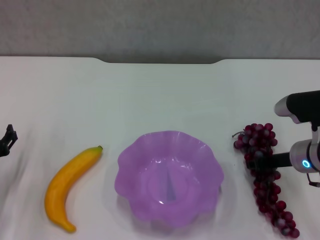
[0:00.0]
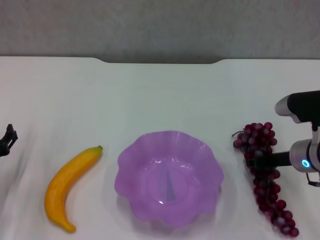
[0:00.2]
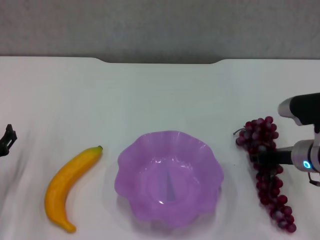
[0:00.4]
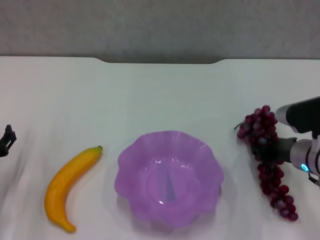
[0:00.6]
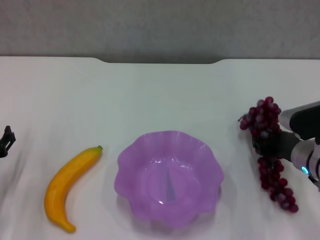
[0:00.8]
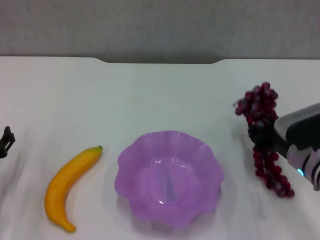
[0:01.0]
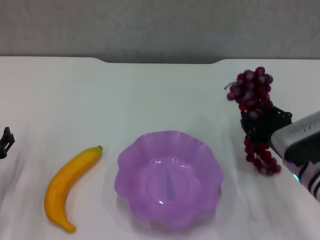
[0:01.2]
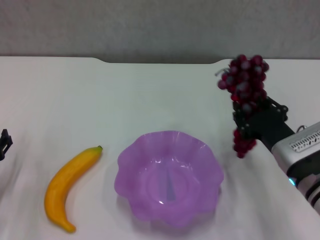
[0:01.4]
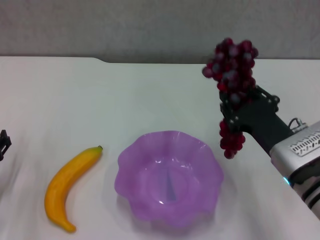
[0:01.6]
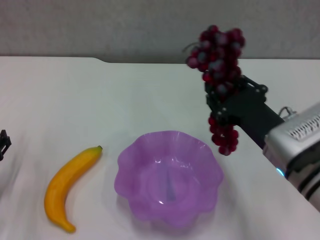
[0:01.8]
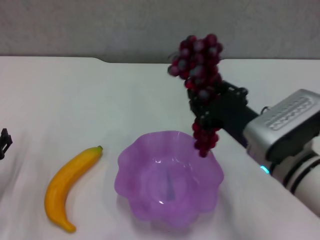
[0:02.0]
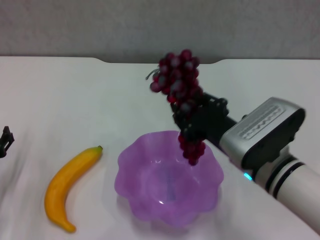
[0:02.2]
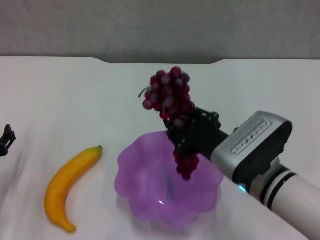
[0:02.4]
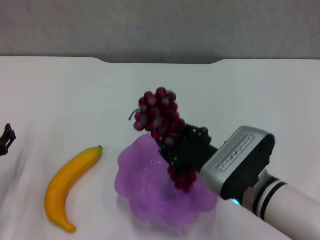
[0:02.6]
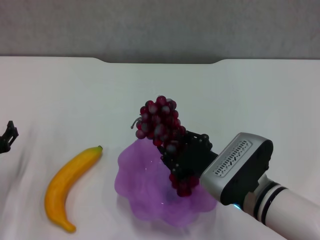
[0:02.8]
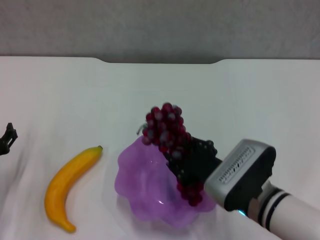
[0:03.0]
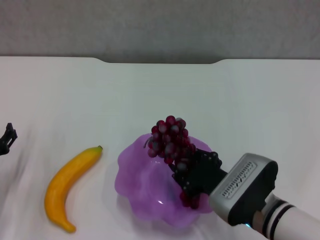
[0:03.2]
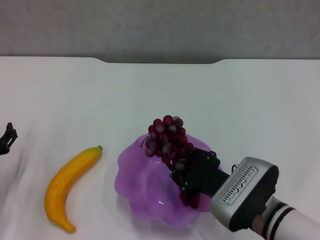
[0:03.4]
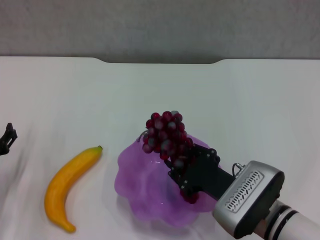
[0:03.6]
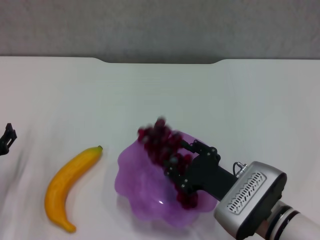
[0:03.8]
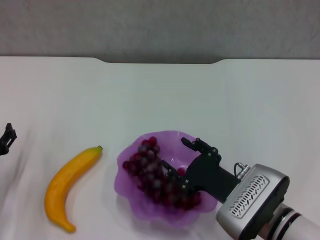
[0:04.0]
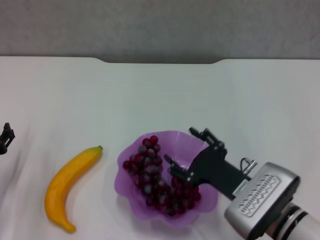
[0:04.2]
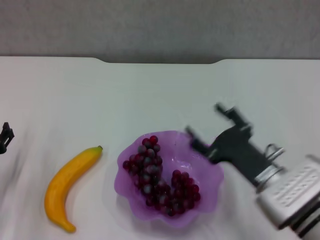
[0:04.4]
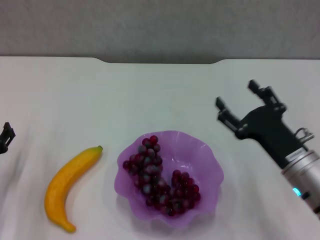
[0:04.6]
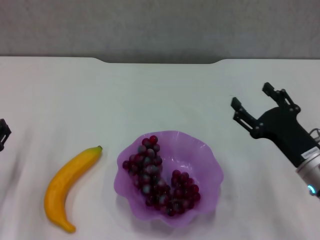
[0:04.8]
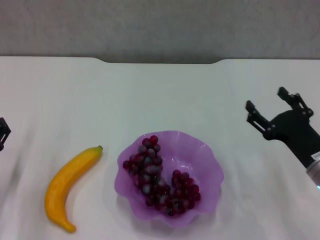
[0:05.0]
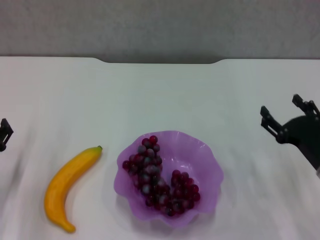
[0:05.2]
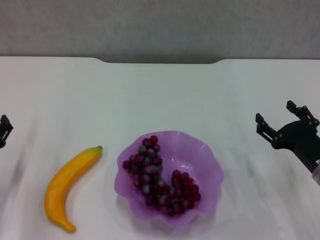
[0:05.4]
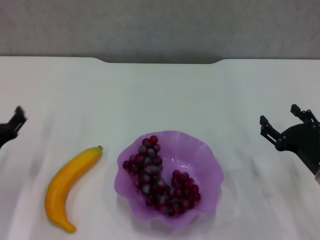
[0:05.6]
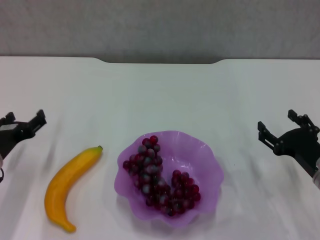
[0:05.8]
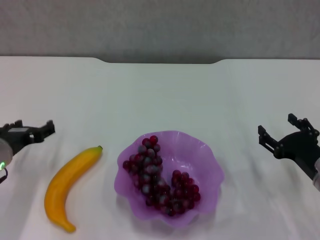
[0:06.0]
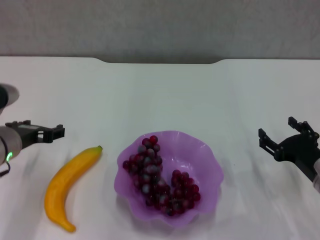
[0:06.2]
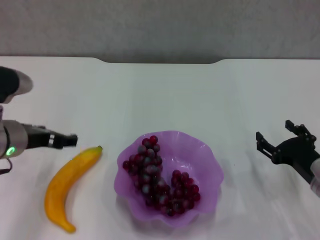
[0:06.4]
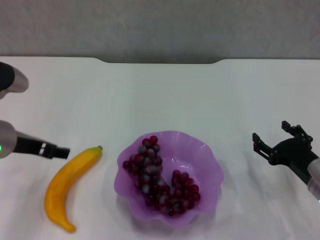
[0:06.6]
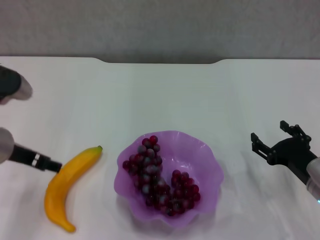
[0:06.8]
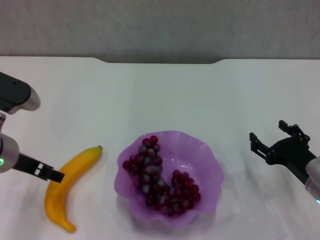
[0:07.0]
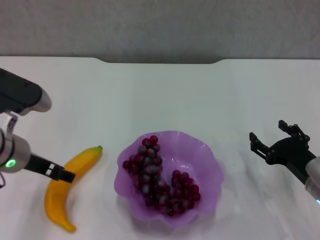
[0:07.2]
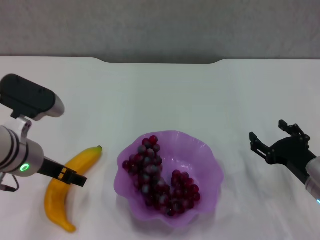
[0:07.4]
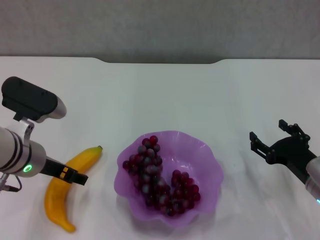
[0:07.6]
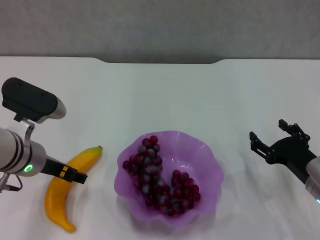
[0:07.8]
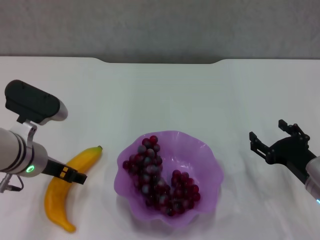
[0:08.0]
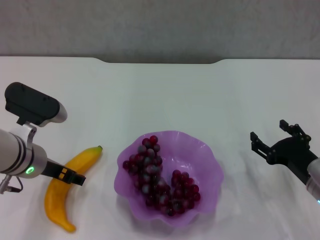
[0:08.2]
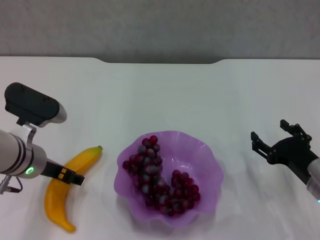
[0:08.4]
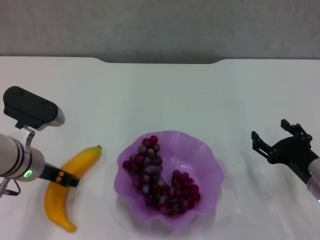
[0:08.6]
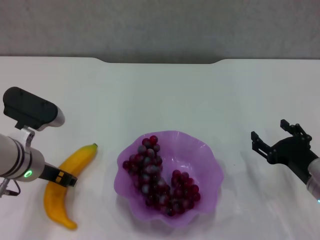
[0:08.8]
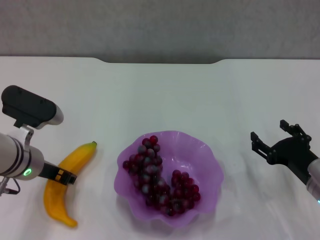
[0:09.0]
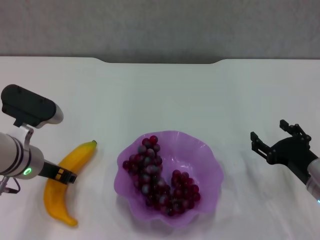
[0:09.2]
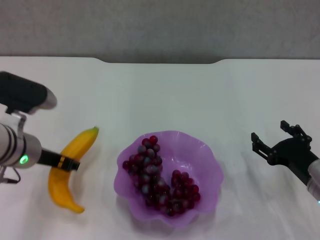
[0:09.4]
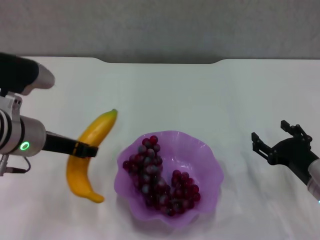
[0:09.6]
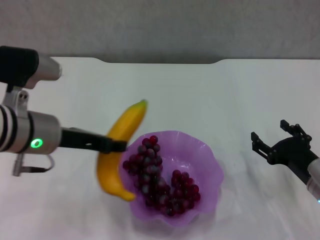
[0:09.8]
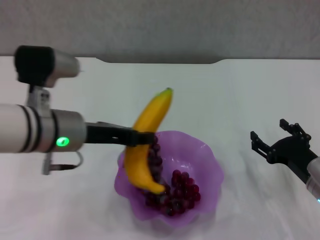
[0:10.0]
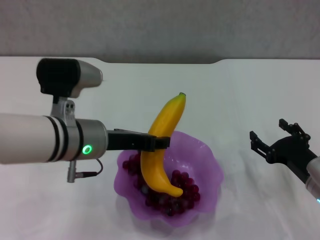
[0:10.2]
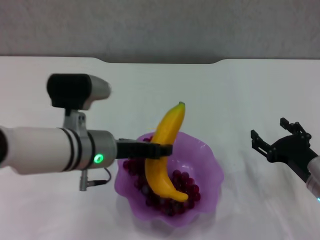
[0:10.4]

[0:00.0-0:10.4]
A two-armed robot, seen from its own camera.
Step, 0:00.0 to 0:04.2: Place the grape in the purple plate with right gripper.
Step, 0:04.4 to 0:08.6: Grasp the banana with left gripper.
0:00.0 to 0:01.4: The right gripper travels backward by about 5 cm.
0:01.4 to 0:03.0: The right gripper travels to the left by some 10 cm.
0:03.0 to 0:04.4: The right gripper opens.
0:04.4 to 0:06.0: The left gripper shifts about 5 cm upward. Meanwhile the right gripper heads to the right, covering about 10 cm.
0:06.0 to 0:07.4: The left gripper heads to the right and upward, covering some 10 cm.
0:07.4 to 0:09.0: The left gripper closes up.
0:09.0 to 0:10.4: The left gripper goes some 10 cm to the right.

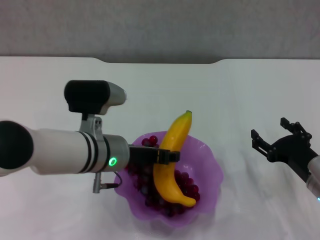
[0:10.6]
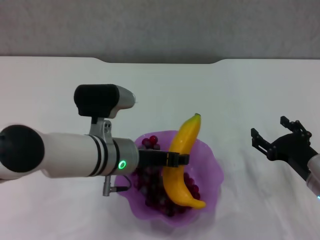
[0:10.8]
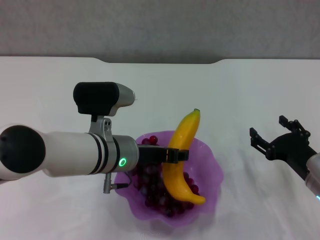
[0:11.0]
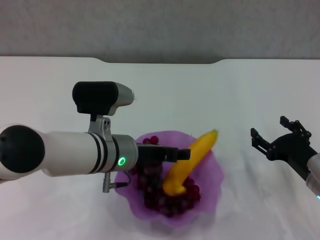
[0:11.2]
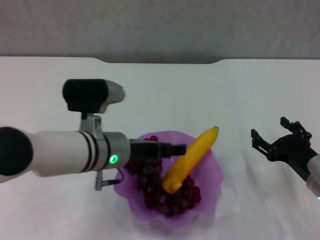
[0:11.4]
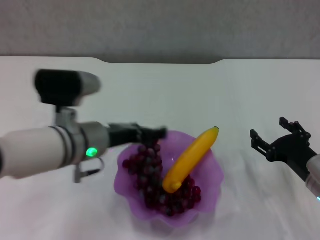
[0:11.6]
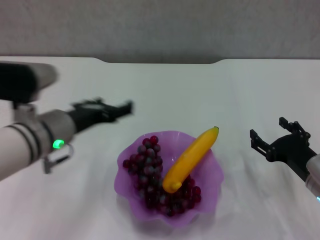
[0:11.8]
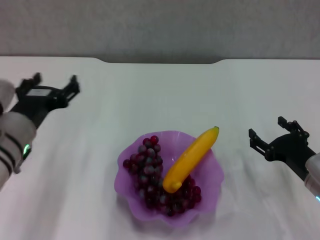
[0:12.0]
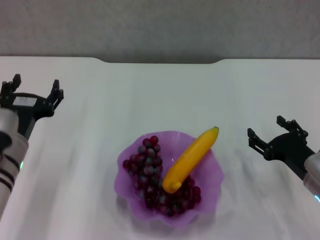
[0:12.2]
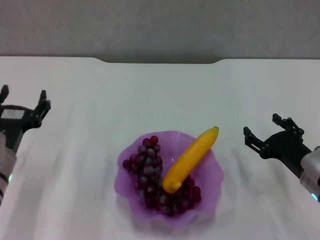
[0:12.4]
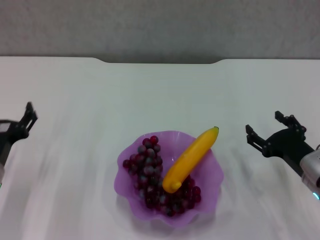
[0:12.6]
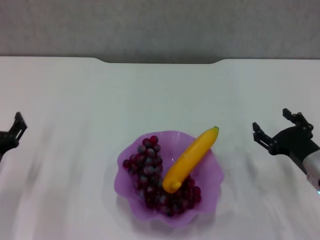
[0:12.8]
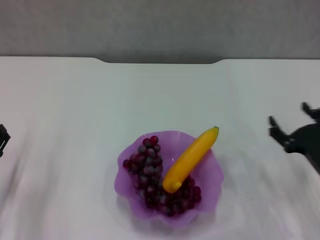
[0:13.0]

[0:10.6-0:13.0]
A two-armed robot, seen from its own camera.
0:10.6 to 0:11.8: The left gripper is displaced to the left by roughly 5 cm, and opens up.
0:11.8 to 0:13.0: The left gripper goes about 20 cm to the left, downward and backward.
